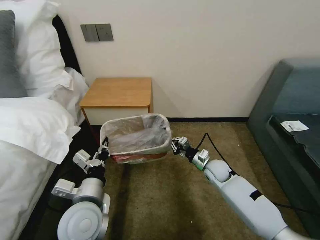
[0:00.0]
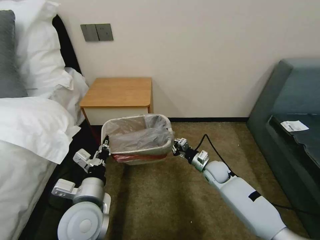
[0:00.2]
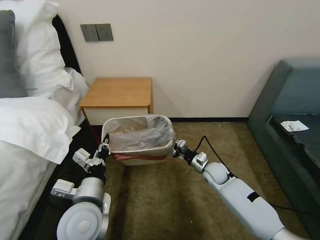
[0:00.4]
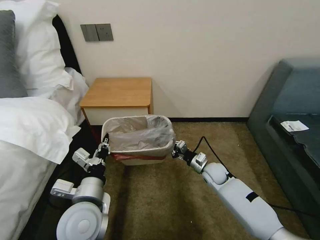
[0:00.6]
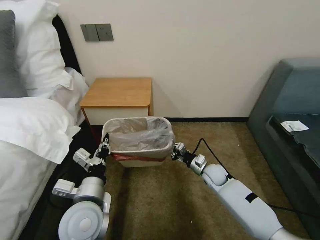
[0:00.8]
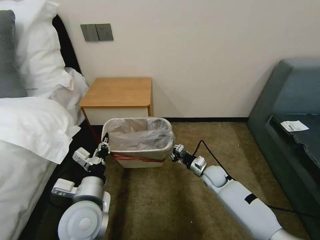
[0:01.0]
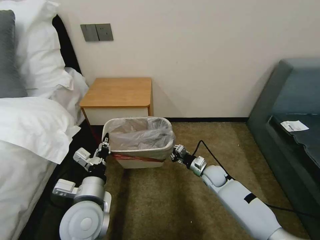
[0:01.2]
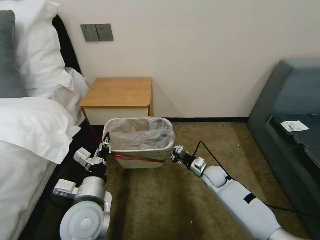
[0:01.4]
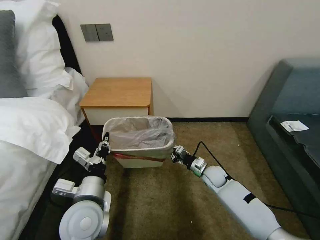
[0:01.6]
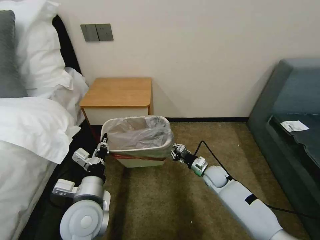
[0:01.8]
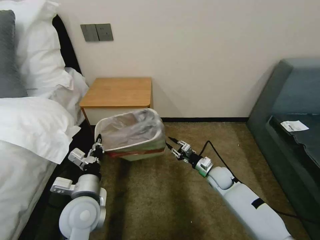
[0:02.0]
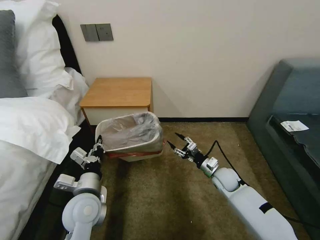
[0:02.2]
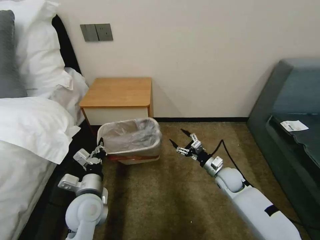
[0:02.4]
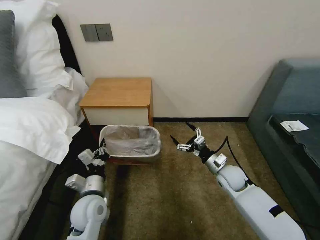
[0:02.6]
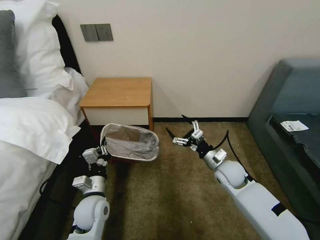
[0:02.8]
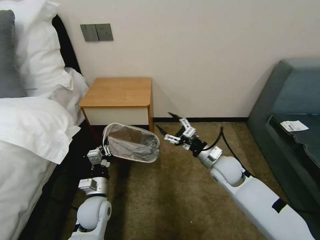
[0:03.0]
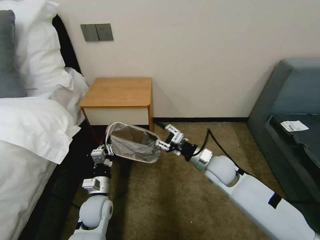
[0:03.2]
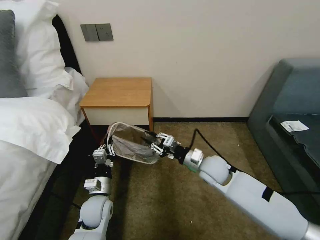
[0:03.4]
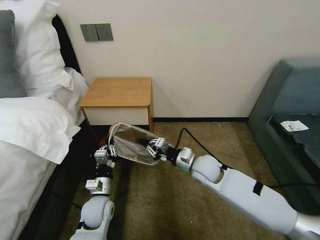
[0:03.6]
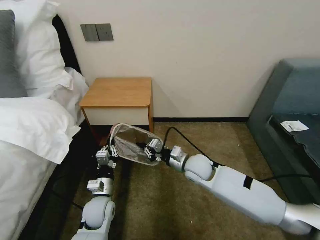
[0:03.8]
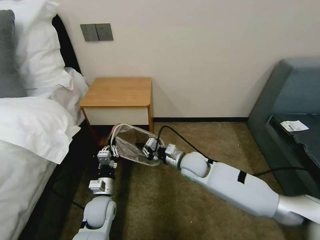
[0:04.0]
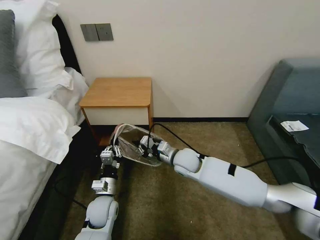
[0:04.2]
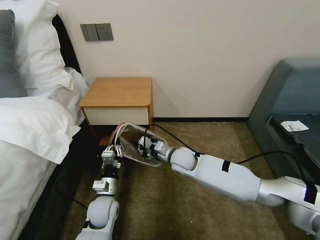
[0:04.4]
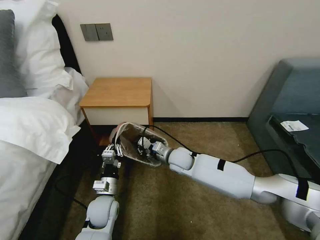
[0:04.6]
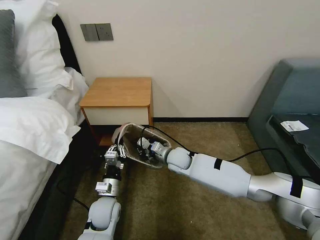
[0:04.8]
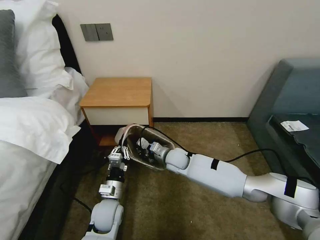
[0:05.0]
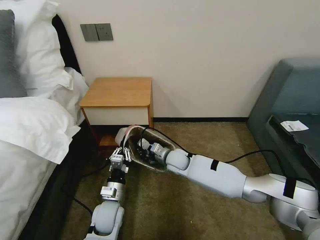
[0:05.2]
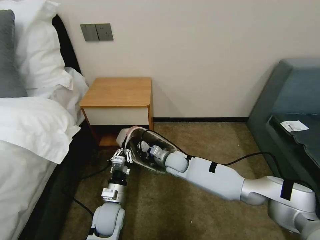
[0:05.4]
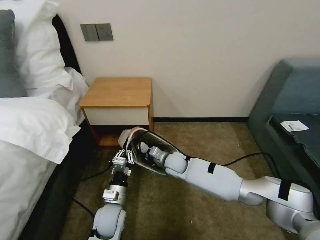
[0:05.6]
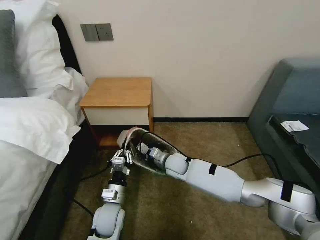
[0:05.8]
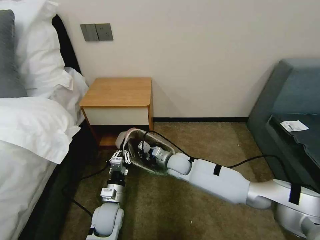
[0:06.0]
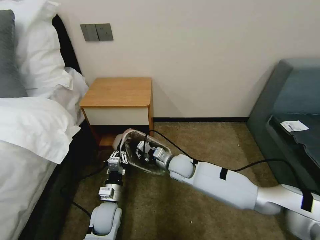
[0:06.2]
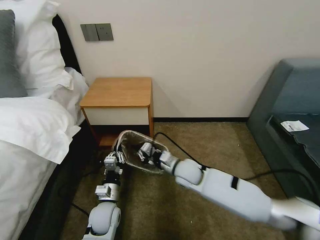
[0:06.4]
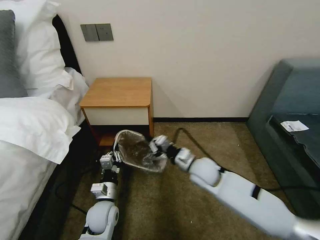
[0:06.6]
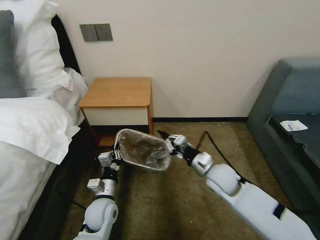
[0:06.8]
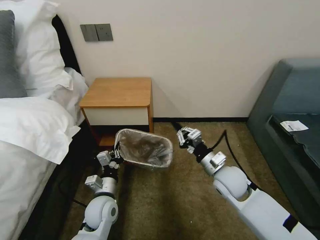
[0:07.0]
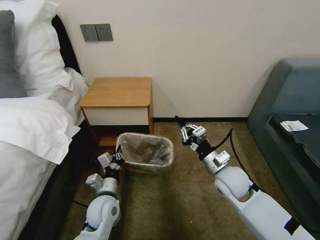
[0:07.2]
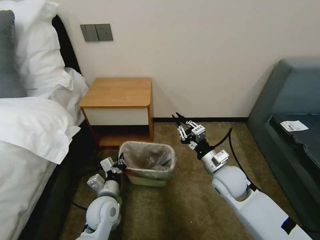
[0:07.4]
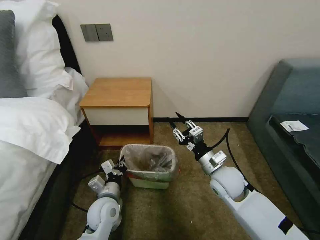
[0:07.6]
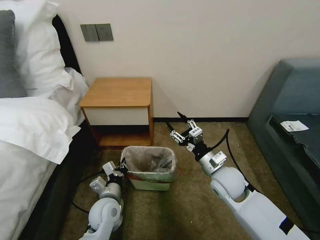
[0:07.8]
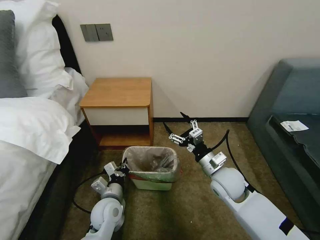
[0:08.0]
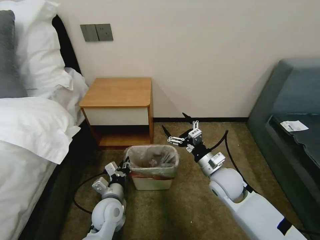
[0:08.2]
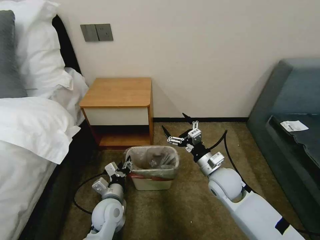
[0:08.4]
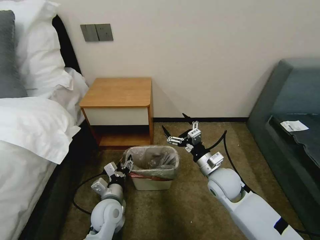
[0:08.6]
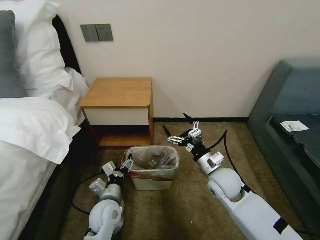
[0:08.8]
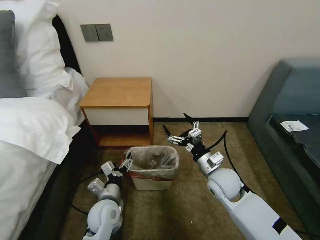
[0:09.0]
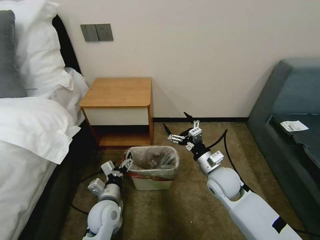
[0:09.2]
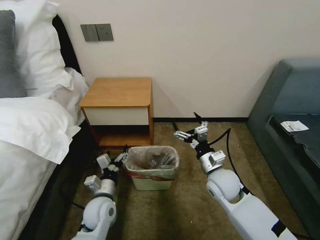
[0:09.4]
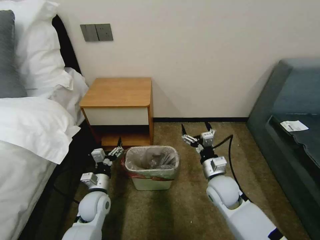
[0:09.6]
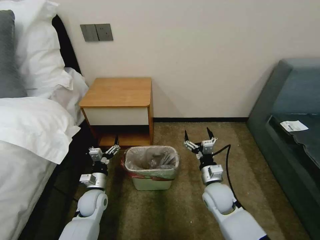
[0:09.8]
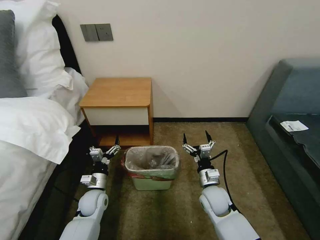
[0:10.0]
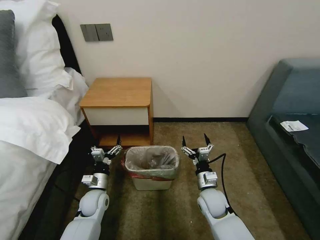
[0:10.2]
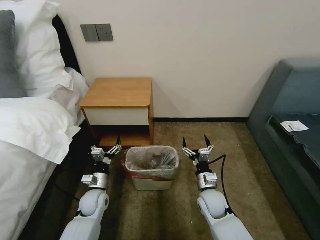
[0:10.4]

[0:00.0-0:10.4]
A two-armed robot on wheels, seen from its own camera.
Task of the whole recording: Pick up the garbage bag from the table and place it over the trash can.
0:00.0 to 0:01.4: The grippers make only small movements.
0:01.4 to 0:03.0: The left gripper is displaced downward and forward by some 15 cm. The right gripper travels upward by approximately 15 cm, and opens up.
0:03.0 to 0:04.4: The right gripper heads to the left, covering about 15 cm, and closes.
0:04.4 to 0:06.0: The grippers move only a little.
0:06.0 to 0:07.4: The right gripper moves to the right, backward and upward, about 20 cm.
0:07.4 to 0:09.0: The right gripper opens, while the left gripper opens.
0:09.0 to 0:10.4: The left gripper goes about 10 cm to the left, downward and forward; the right gripper moves downward, roughly 10 cm.

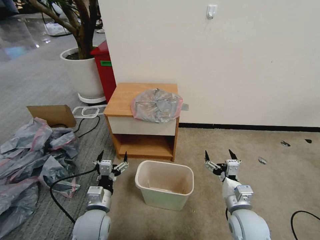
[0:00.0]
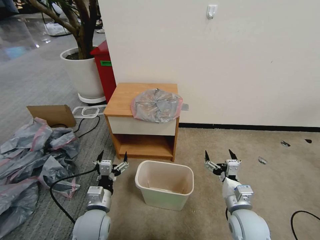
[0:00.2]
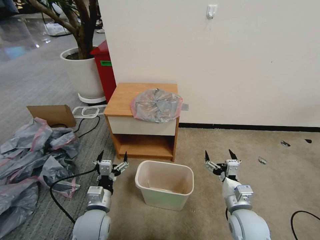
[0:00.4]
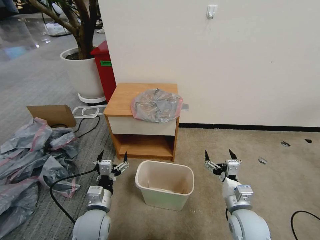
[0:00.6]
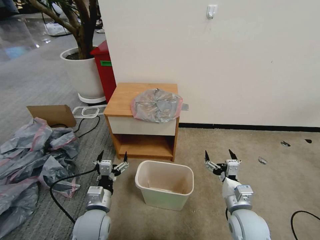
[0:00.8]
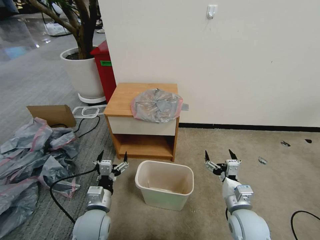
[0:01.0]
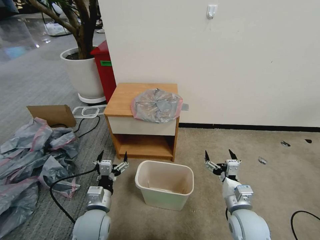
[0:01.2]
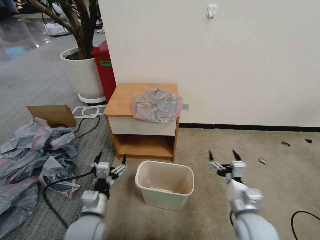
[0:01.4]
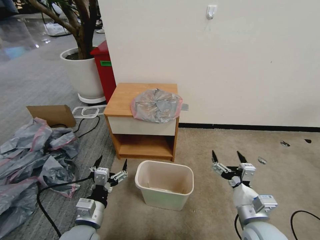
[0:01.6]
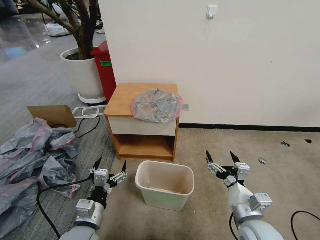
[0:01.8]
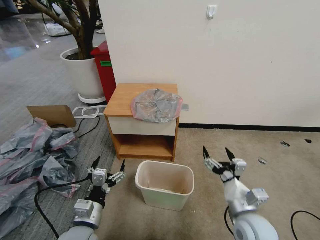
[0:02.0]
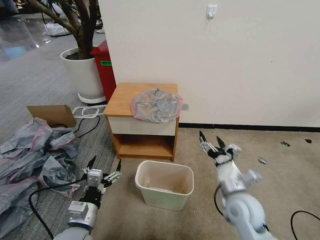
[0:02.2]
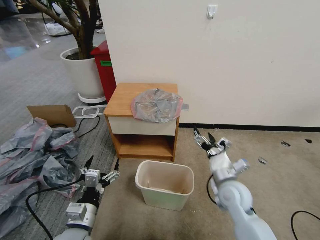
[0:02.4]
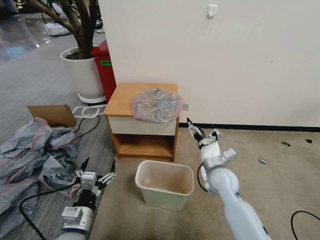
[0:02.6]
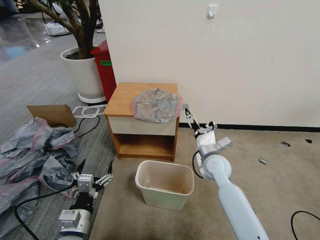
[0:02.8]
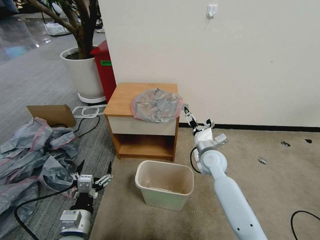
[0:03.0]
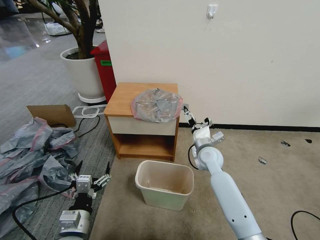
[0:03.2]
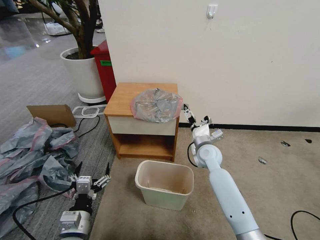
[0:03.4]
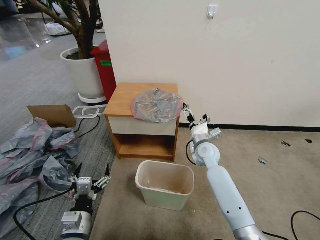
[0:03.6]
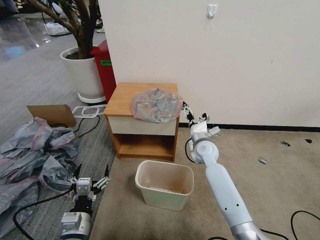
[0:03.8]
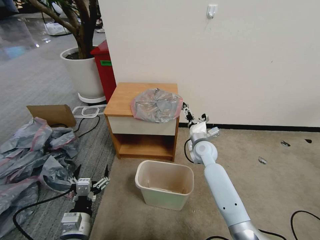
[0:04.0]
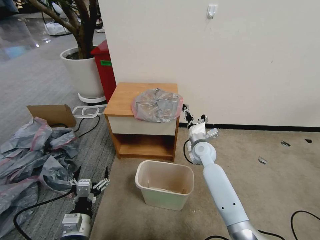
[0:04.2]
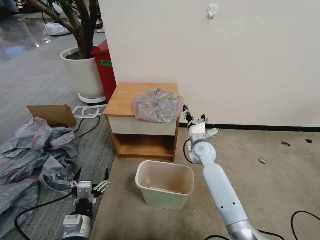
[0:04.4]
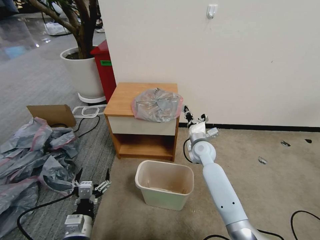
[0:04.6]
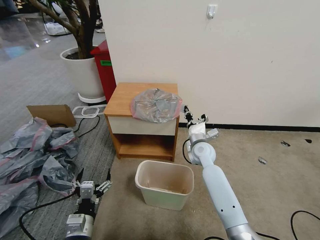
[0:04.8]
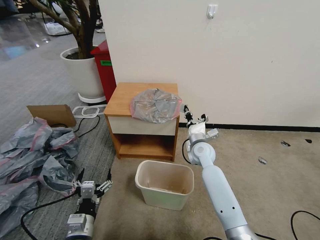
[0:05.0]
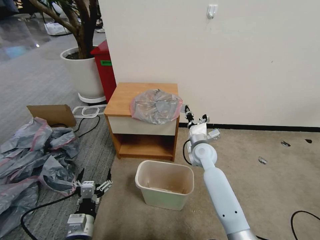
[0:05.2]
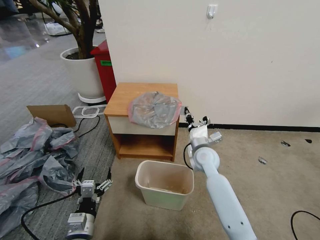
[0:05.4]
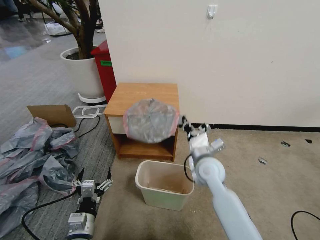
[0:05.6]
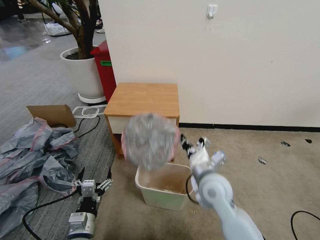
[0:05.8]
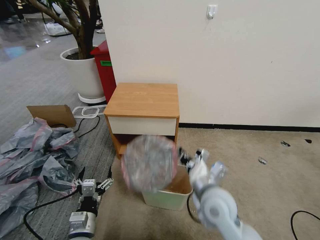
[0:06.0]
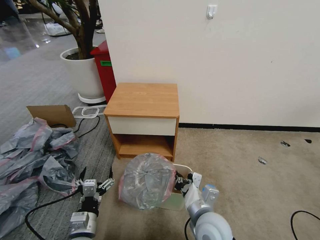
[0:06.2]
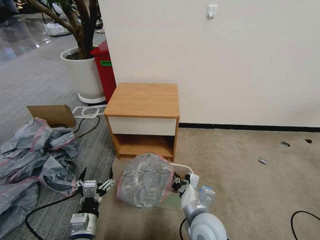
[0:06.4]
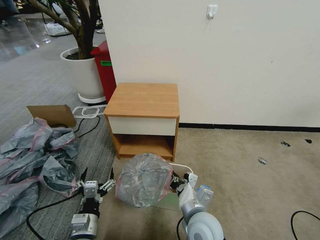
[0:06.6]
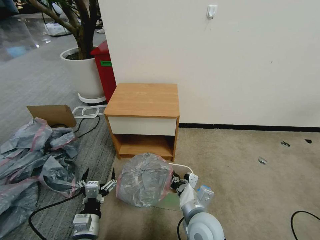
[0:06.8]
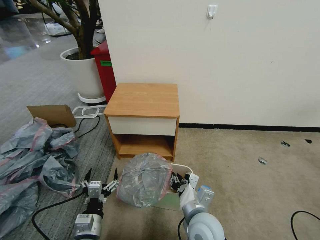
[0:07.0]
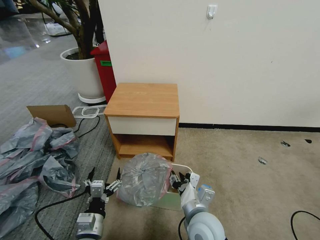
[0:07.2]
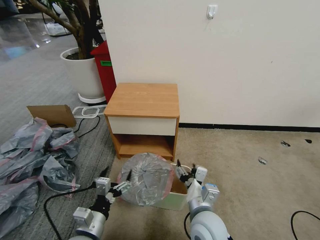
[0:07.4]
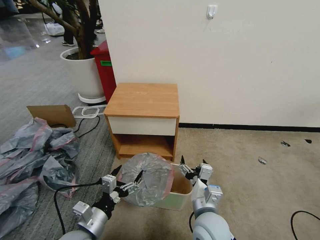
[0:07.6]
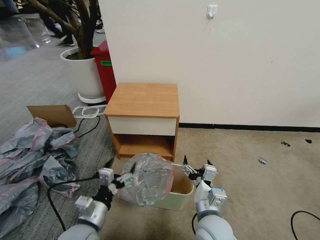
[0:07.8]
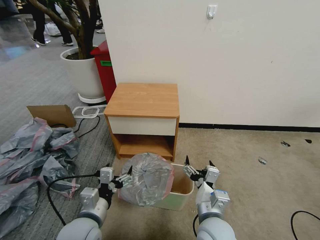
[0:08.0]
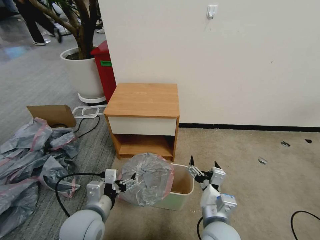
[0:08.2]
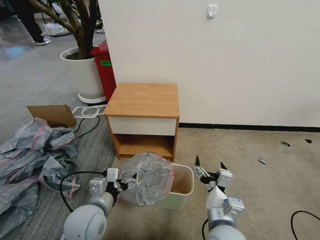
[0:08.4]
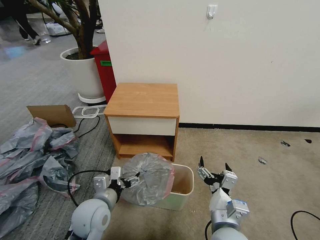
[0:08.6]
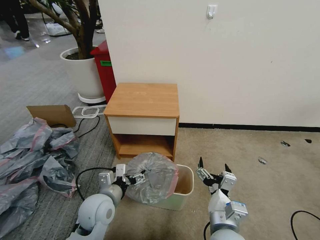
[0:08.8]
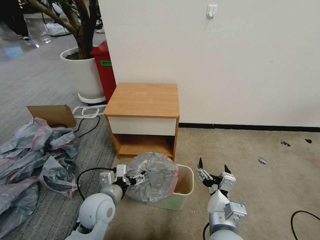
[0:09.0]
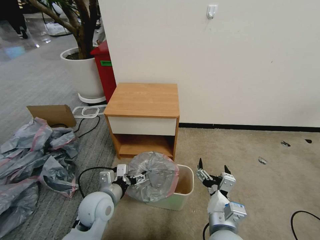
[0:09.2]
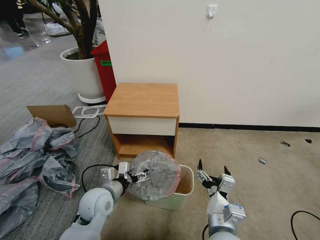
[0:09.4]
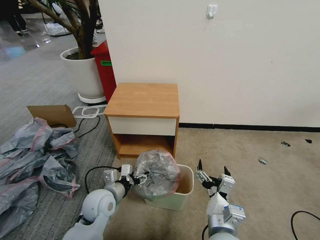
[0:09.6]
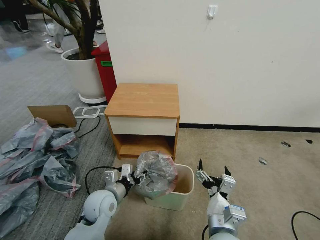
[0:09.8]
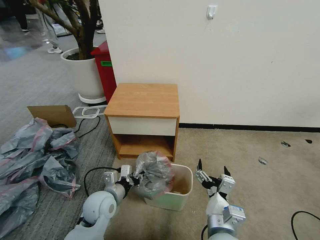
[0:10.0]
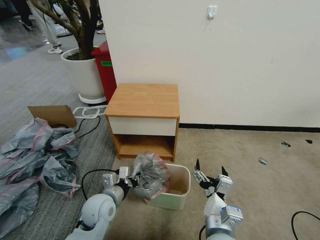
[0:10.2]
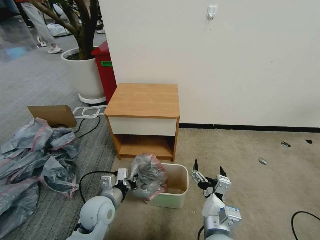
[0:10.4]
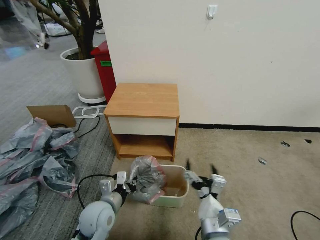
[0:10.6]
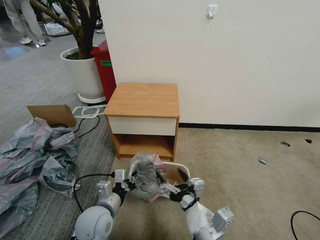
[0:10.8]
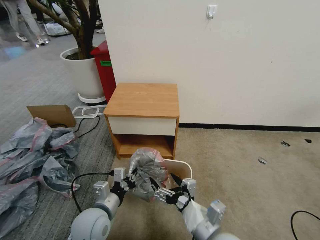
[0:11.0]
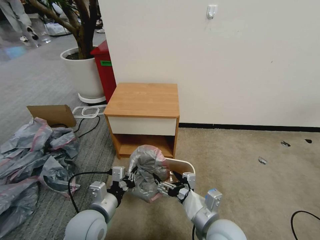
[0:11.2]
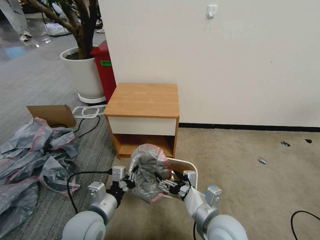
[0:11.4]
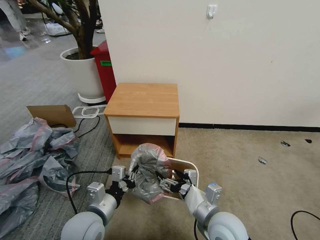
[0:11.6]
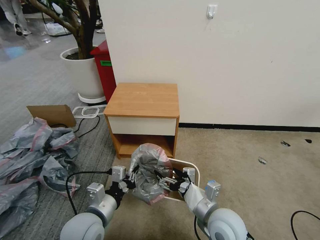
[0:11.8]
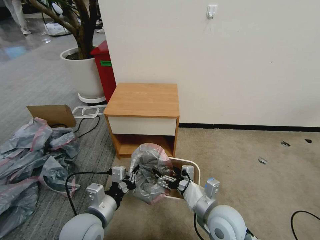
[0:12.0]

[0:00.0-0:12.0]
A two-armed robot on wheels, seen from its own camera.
Task of the whole recording: Pick up the garbage bag from the table and place it over the trash can.
0:01.6 to 0:03.0: The right gripper travels forward by roughly 25 cm.
0:03.0 to 0:04.4: The right gripper is displaced forward by some 5 cm, and closes.
0:04.4 to 0:06.0: The right gripper travels backward by approximately 25 cm.
0:06.0 to 0:07.6: The right gripper shifts by about 5 cm, and opens up.
0:07.6 to 0:09.0: The left gripper moves forward, roughly 10 cm, while the right gripper shifts by about 5 cm.
0:09.0 to 0:10.4: The left gripper closes.
0:10.4 to 0:12.0: The left gripper heads upward and backward, covering some 10 cm; the right gripper is displaced forward by about 5 cm.
